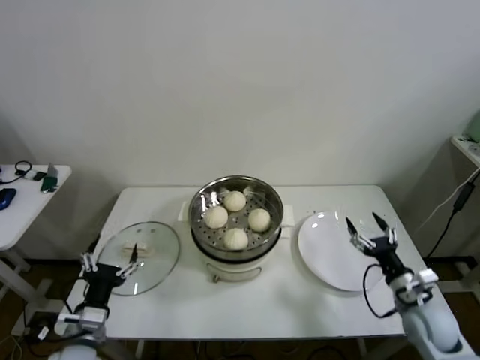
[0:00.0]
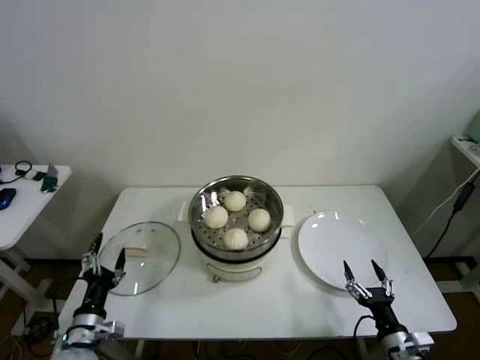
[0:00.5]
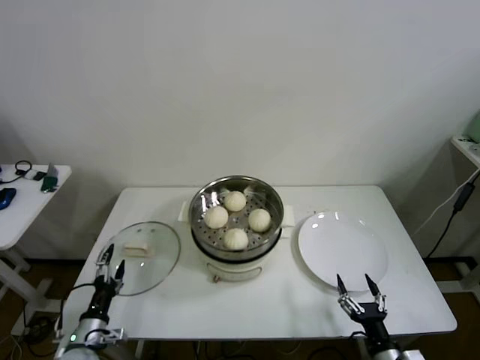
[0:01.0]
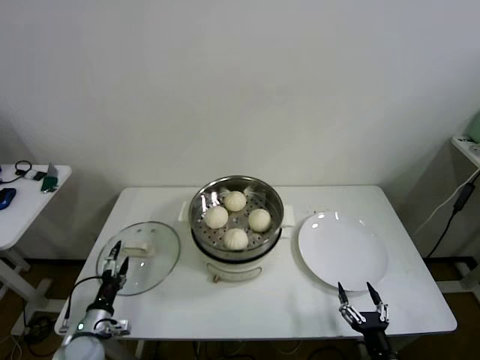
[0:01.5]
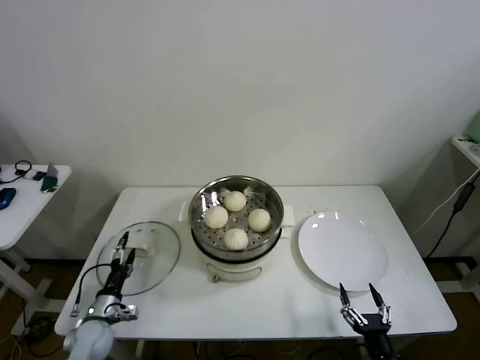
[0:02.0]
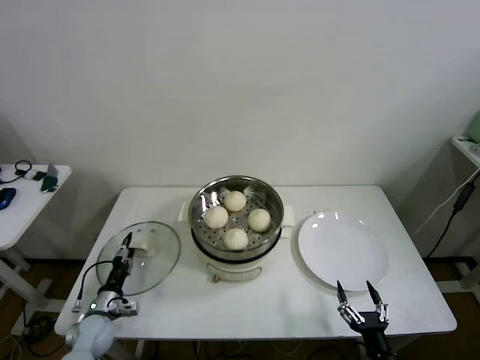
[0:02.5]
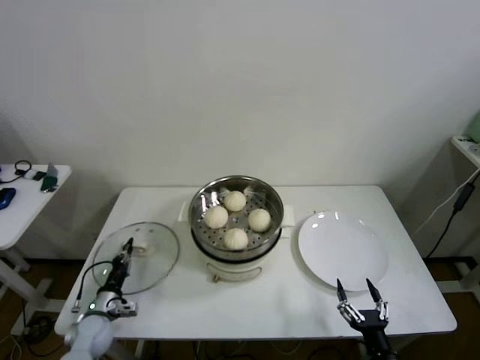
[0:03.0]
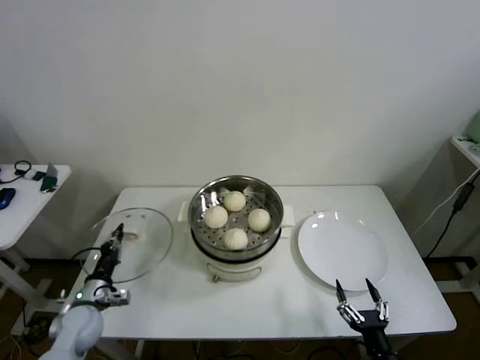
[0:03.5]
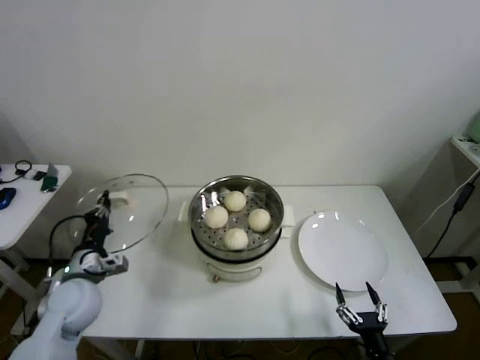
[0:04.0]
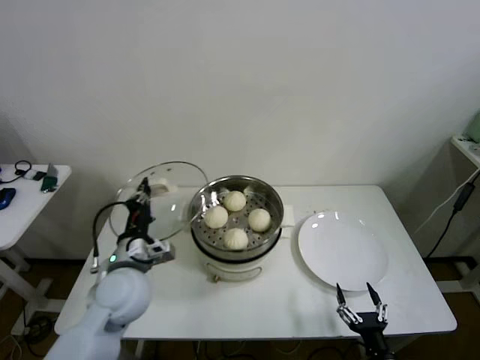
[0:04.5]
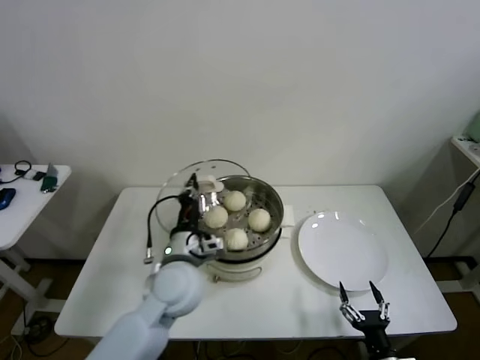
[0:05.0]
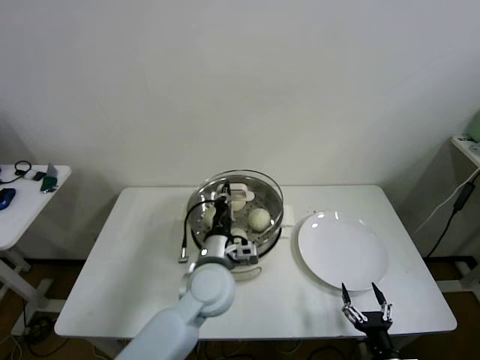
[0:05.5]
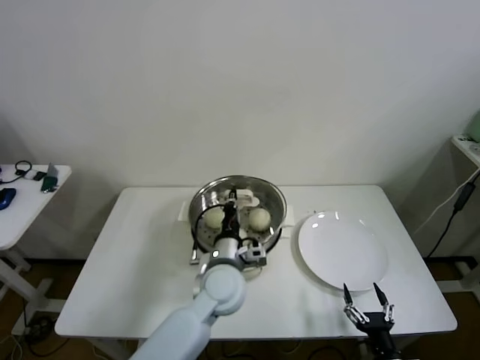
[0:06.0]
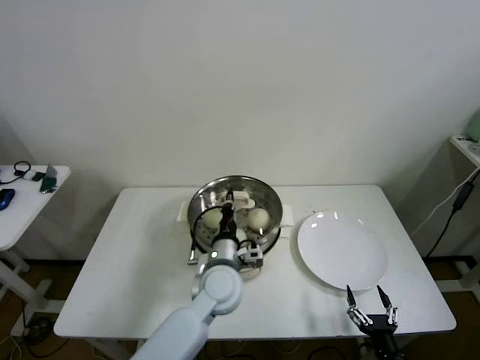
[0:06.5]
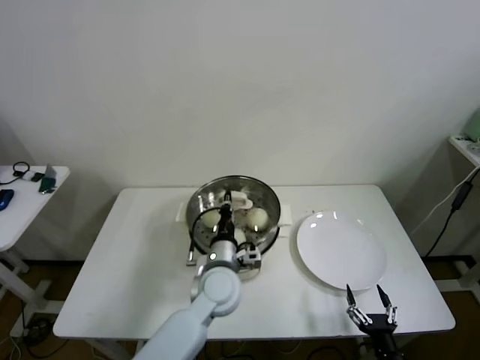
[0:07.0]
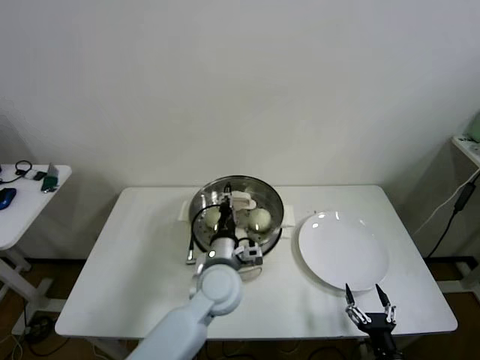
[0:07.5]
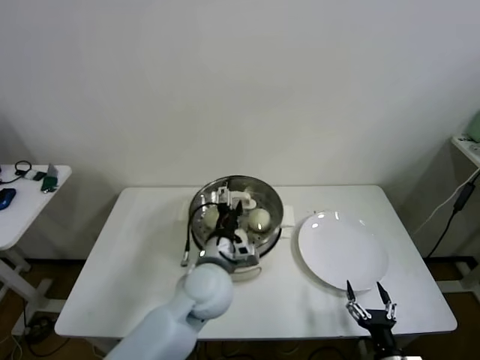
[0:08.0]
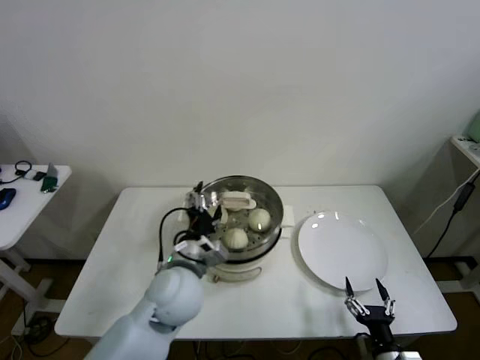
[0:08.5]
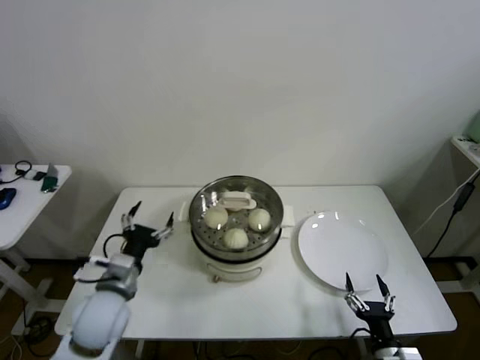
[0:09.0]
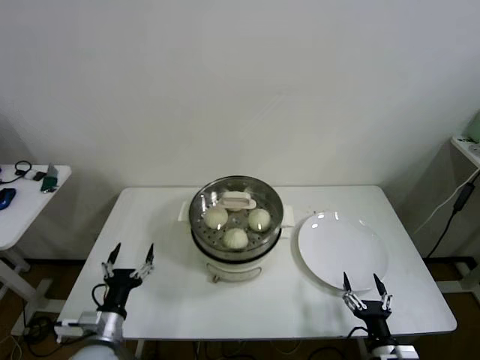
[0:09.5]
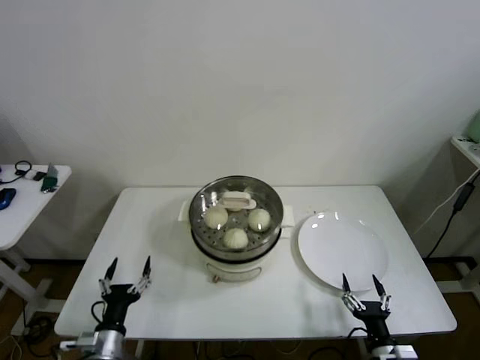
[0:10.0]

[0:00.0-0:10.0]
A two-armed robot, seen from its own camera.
Step, 0:00.0 to 0:02.5: Grasp the pot lid with left gripper.
Step, 0:03.5 to 0:07.0: Place the pot lid on the steamer with left gripper.
0:00.0 to 0:02.0: The left gripper shifts some 20 cm downward, forward and to the left, while the right gripper is displaced backward, to the left and downward by some 20 cm.
0:02.0 to 0:04.0: The left gripper moves upward, approximately 20 cm, and closes its fingers.
0:04.0 to 0:06.0: The left gripper moves to the right, some 30 cm.
0:06.0 to 0:08.0: The left gripper opens its fingers.
0:08.0 to 0:10.0: The left gripper travels to the left, downward and backward by about 30 cm.

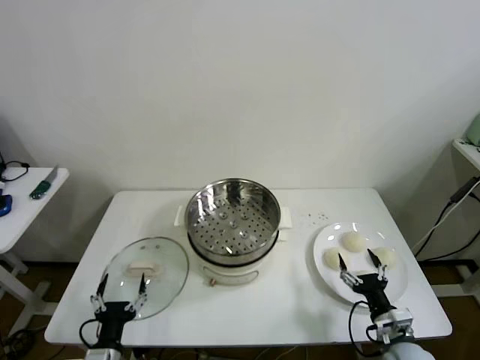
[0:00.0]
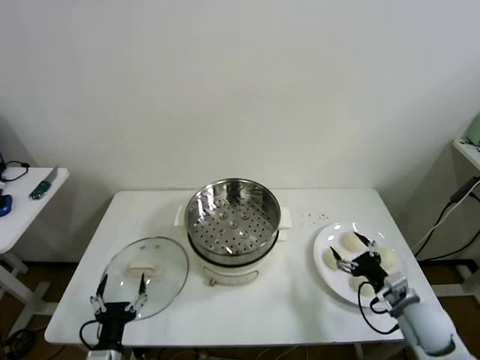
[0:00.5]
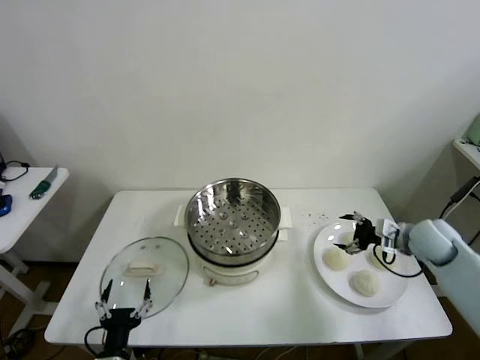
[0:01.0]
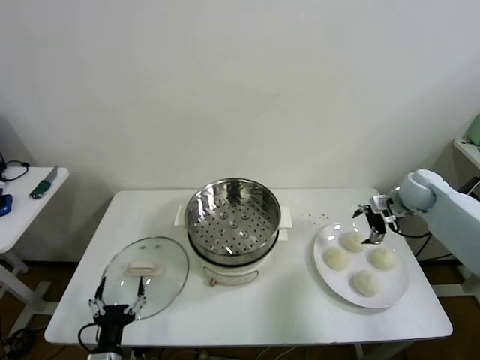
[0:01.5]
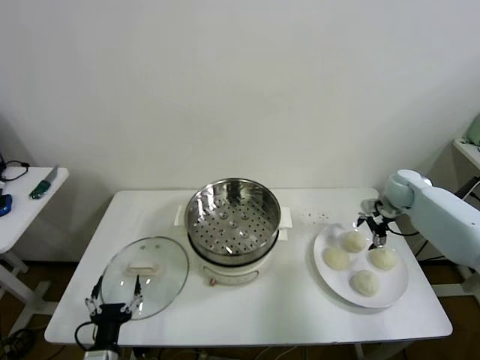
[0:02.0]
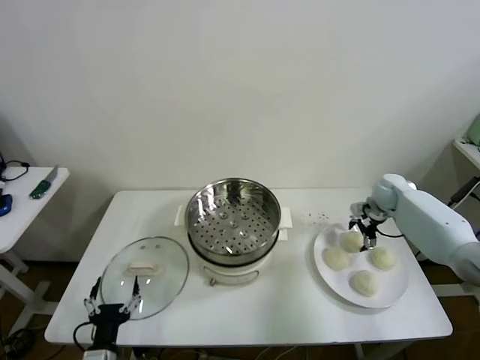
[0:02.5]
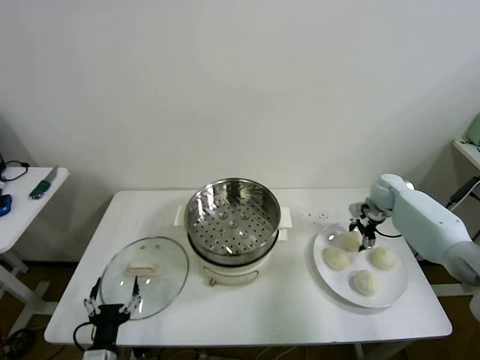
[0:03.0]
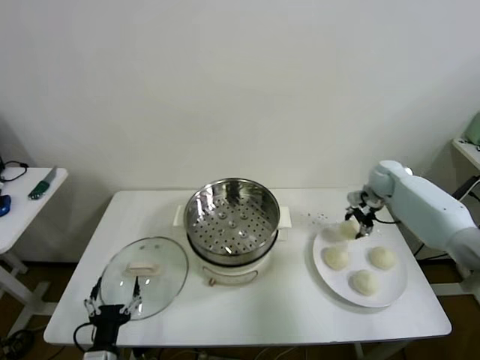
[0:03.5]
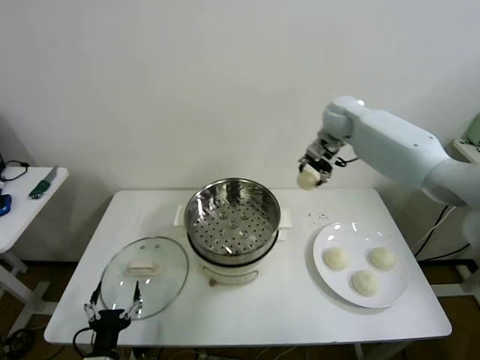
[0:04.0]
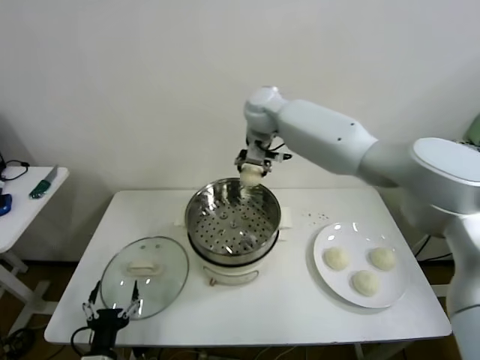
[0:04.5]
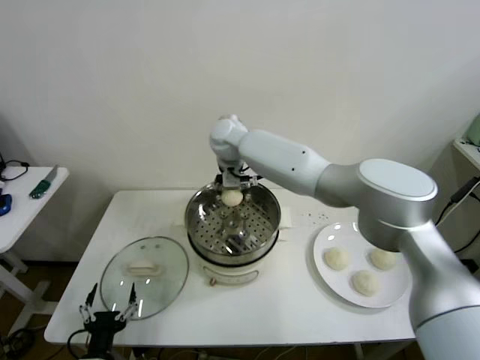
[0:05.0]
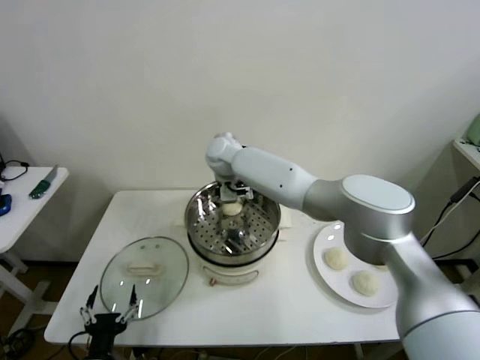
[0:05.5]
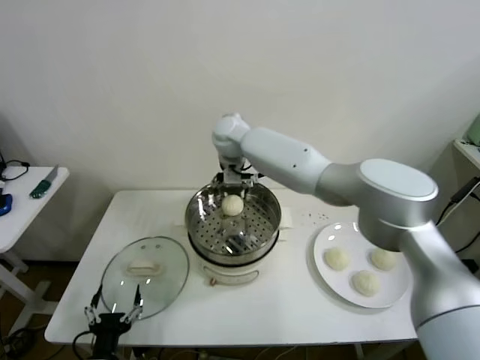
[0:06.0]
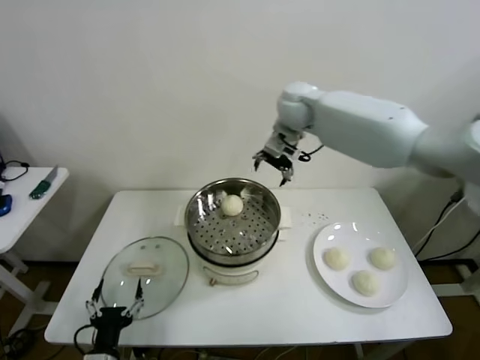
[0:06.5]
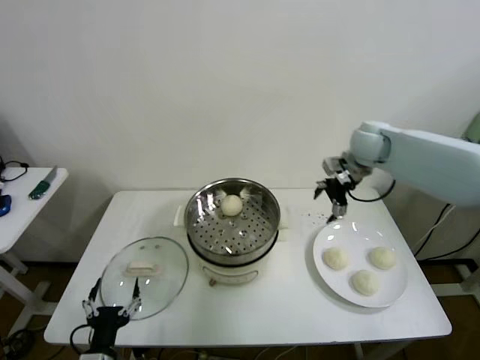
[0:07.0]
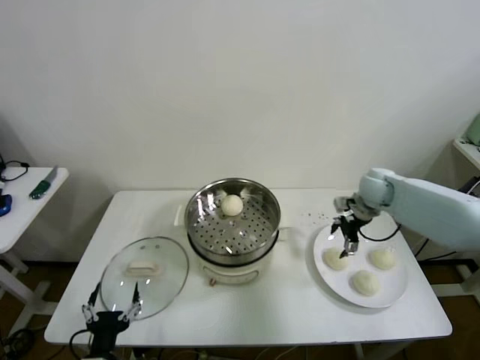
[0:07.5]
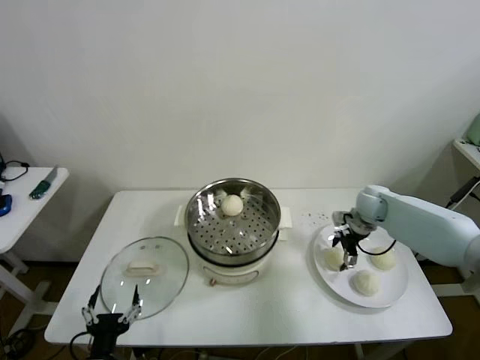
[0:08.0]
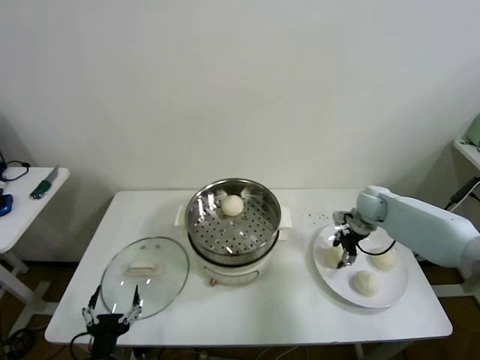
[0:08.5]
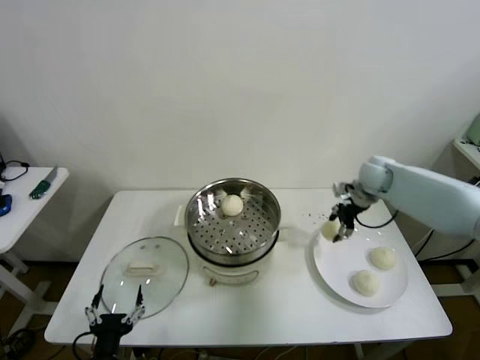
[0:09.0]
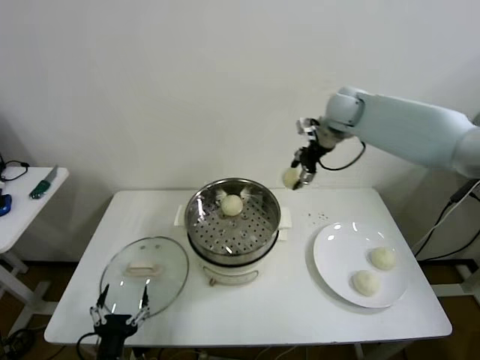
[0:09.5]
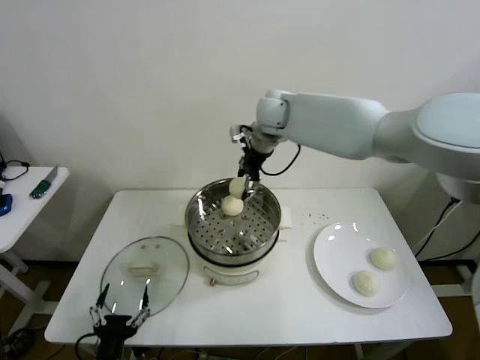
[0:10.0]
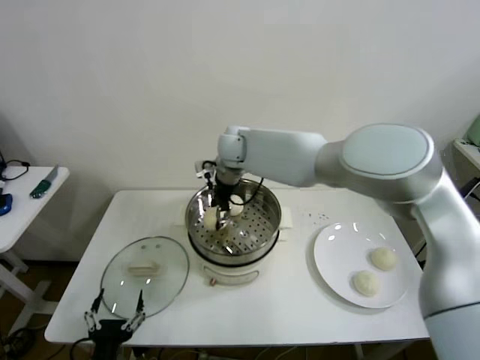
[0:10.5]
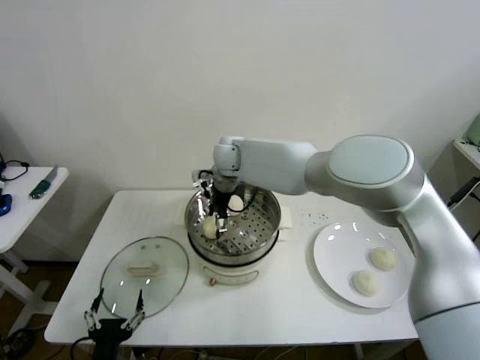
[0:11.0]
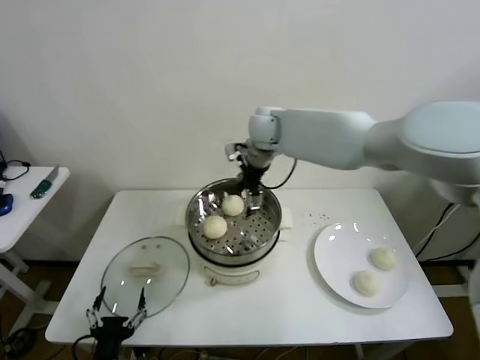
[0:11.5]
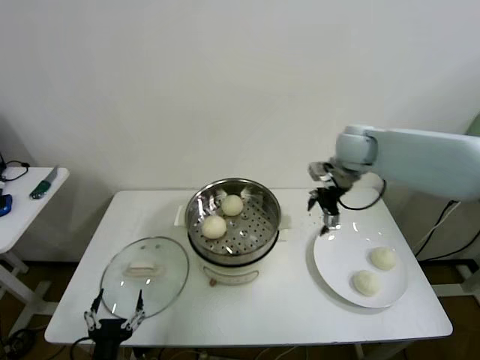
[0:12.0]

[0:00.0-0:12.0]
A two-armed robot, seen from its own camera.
Step, 0:00.0 to 0:02.5: Grasp the baozi in the plate with right gripper.
Step, 0:03.0 to 0:05.0: Place the baozi on the steamer with right gripper.
Step, 0:05.5 to 0:08.0: Grasp the baozi in the plate with right gripper.
Step, 0:08.5 to 0:11.0: Place the baozi on the steamer with right gripper.
0:02.0 to 0:04.0: The right gripper heads to the left, upward and forward, covering about 30 cm, and closes its fingers.
0:04.0 to 0:06.0: The right gripper heads to the left, covering about 25 cm, and opens its fingers.
0:06.0 to 0:08.0: The right gripper goes some 40 cm to the right and downward.
0:08.0 to 0:10.0: The right gripper travels to the left and upward by roughly 35 cm, and closes.
0:10.0 to 0:12.0: The right gripper travels to the right by approximately 15 cm, and opens up.

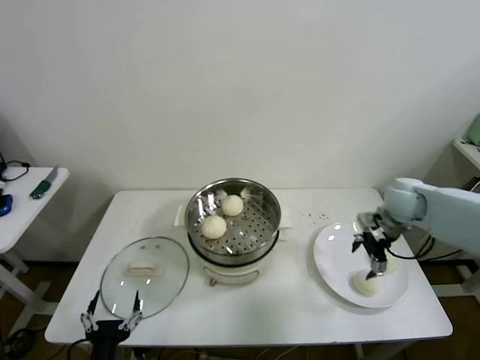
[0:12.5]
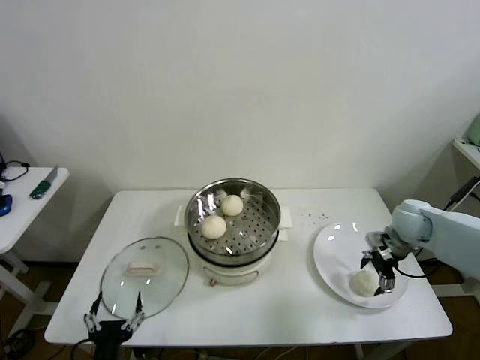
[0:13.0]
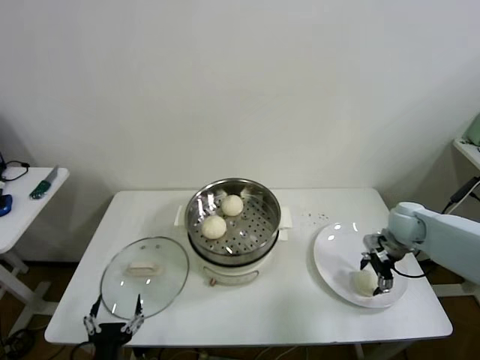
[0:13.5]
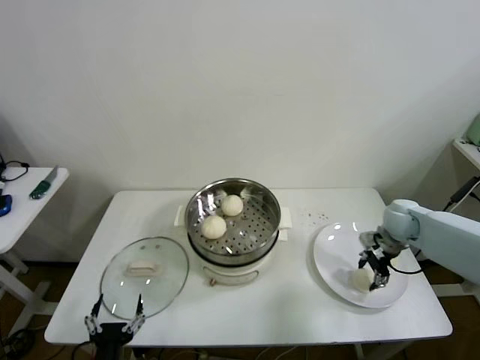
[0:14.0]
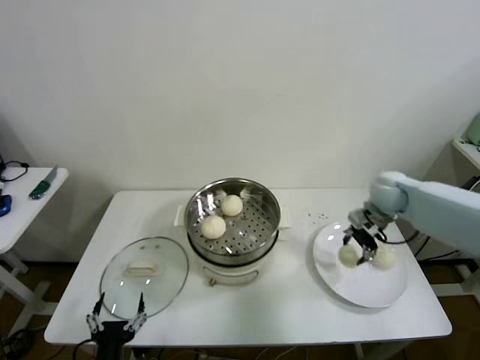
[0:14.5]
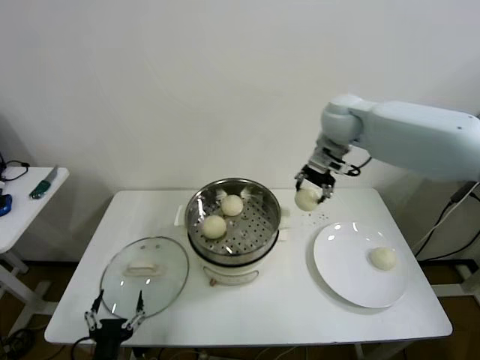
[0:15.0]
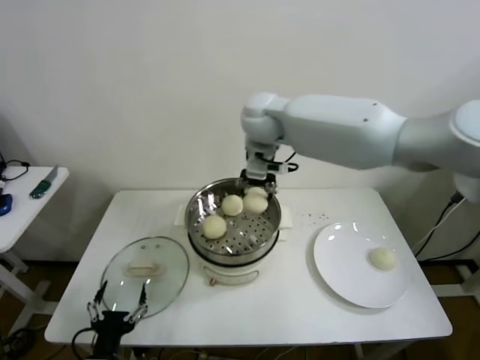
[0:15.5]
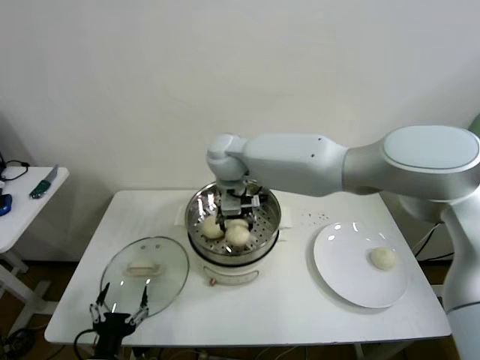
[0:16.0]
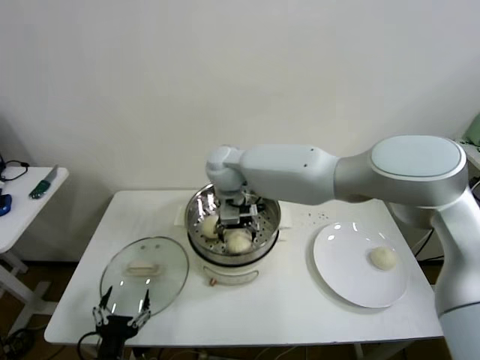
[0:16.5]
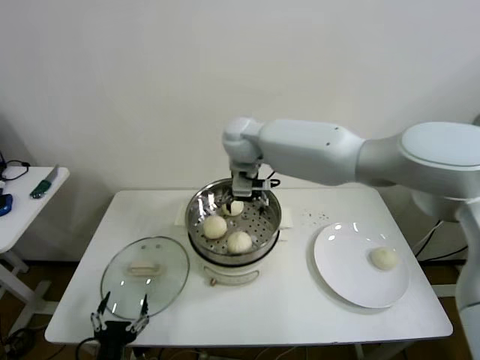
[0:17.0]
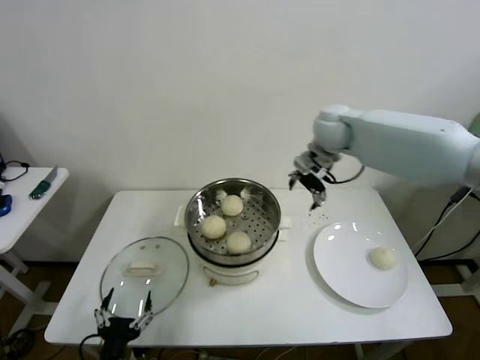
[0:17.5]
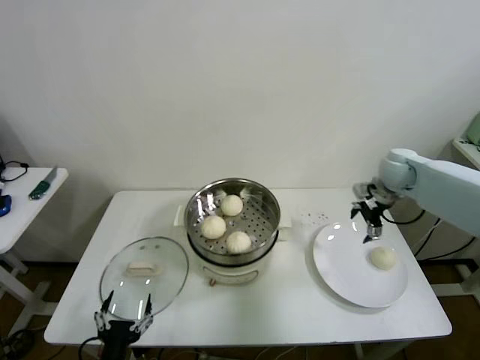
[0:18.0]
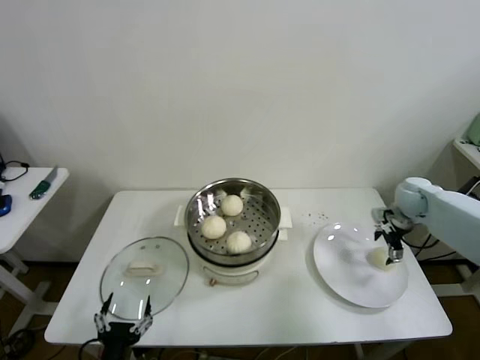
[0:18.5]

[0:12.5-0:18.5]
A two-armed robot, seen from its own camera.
Step, 0:14.0 to 0:16.0: Place the baozi on the steamer with right gripper.
0:12.5 to 0:14.5: The right gripper travels downward and back again, about 10 cm each way, and closes its fingers.
0:14.5 to 0:16.5: The right gripper goes about 40 cm to the left, and opens up.
0:16.5 to 0:18.5: The right gripper heads to the right, covering approximately 50 cm.
